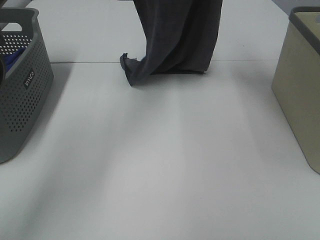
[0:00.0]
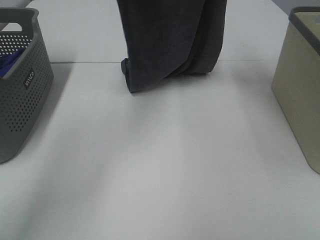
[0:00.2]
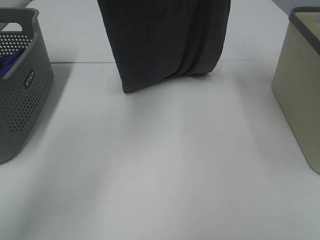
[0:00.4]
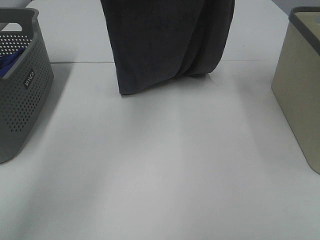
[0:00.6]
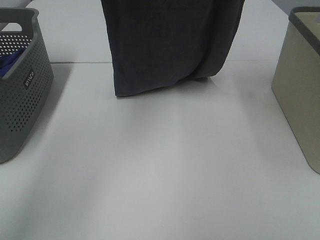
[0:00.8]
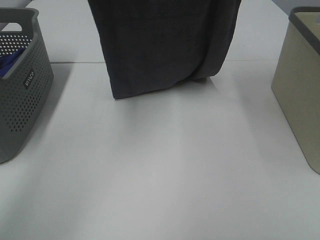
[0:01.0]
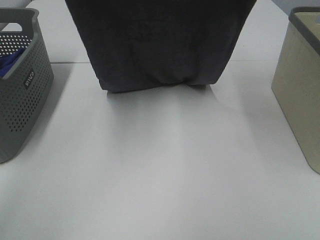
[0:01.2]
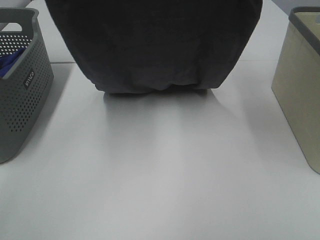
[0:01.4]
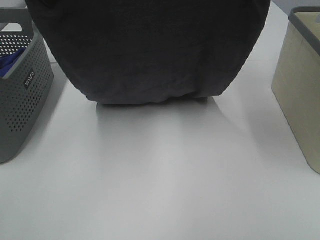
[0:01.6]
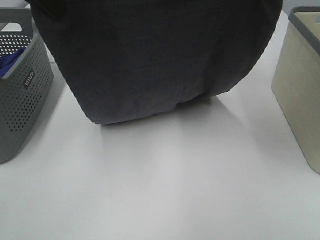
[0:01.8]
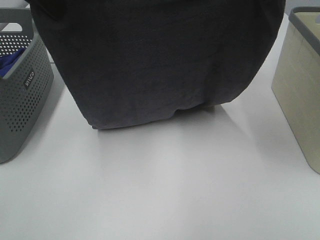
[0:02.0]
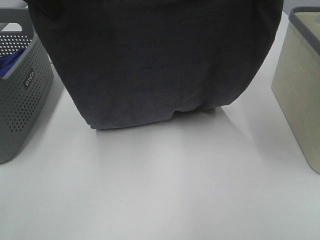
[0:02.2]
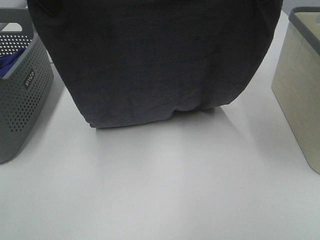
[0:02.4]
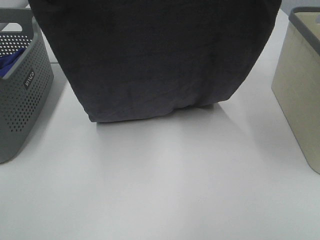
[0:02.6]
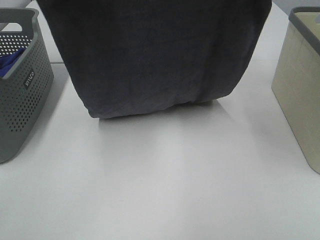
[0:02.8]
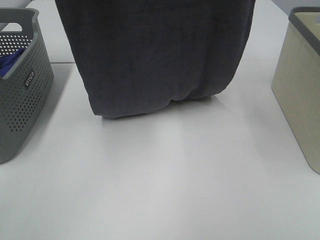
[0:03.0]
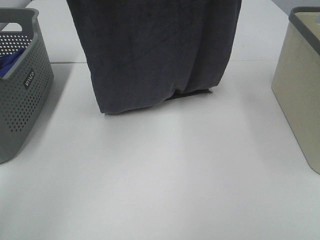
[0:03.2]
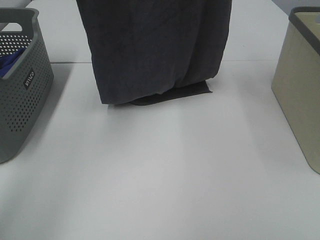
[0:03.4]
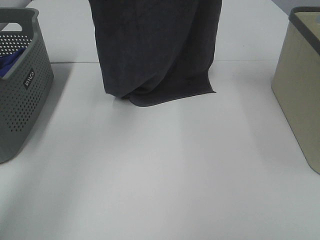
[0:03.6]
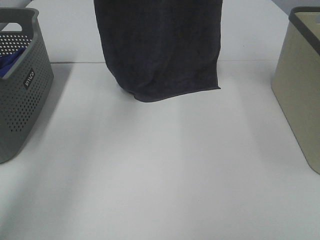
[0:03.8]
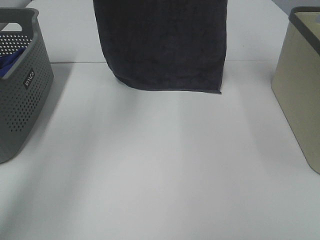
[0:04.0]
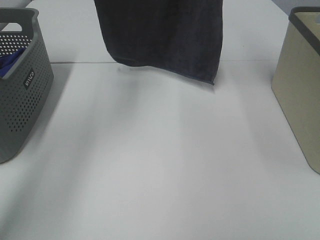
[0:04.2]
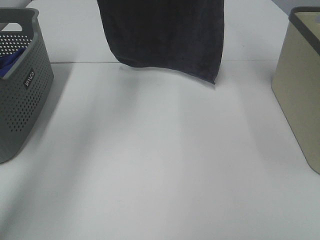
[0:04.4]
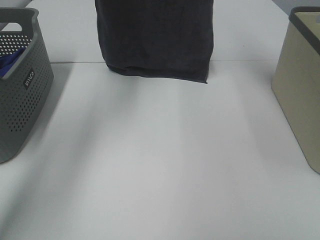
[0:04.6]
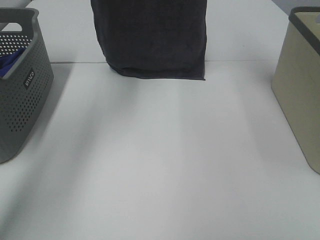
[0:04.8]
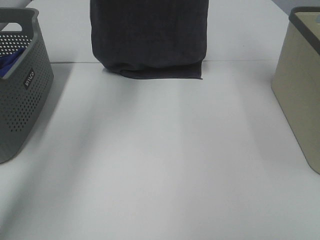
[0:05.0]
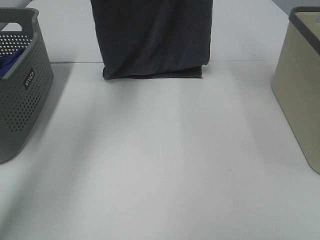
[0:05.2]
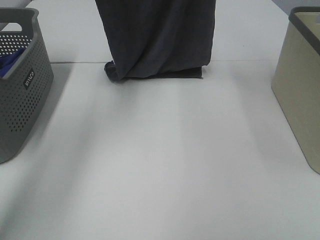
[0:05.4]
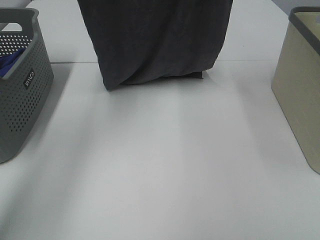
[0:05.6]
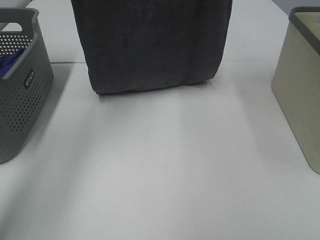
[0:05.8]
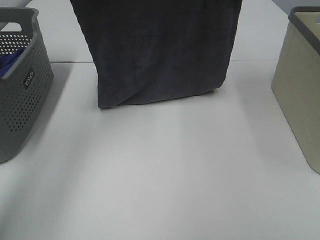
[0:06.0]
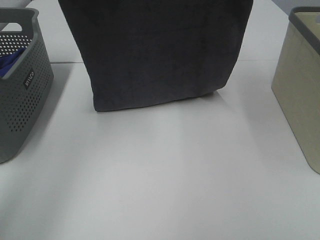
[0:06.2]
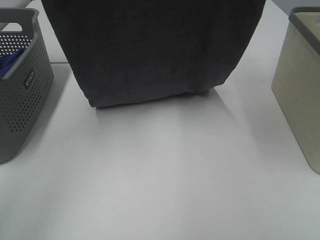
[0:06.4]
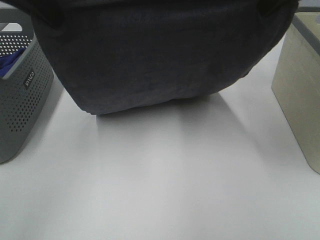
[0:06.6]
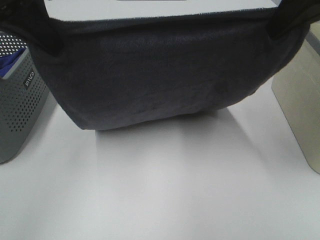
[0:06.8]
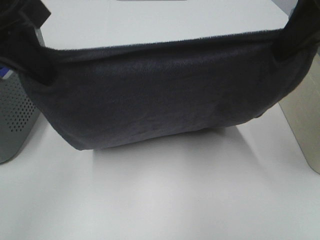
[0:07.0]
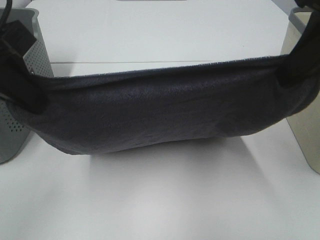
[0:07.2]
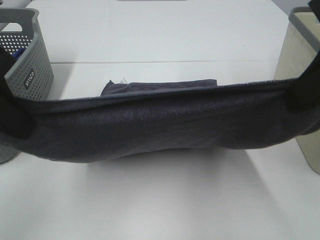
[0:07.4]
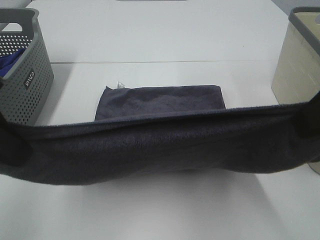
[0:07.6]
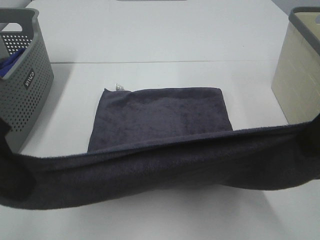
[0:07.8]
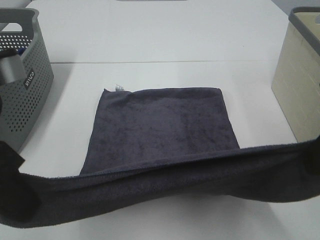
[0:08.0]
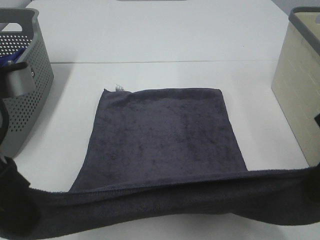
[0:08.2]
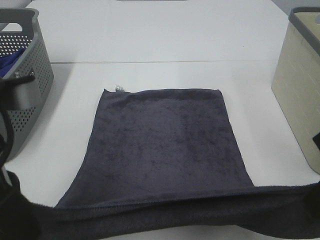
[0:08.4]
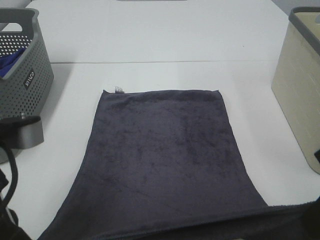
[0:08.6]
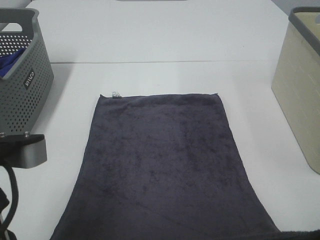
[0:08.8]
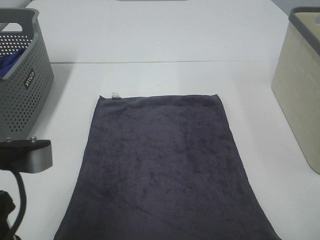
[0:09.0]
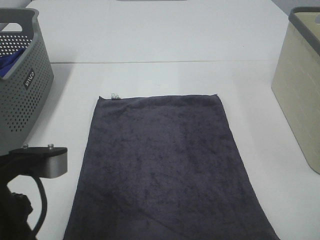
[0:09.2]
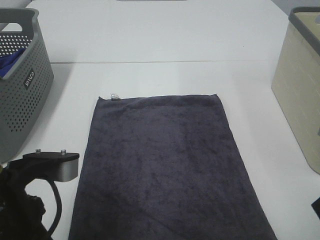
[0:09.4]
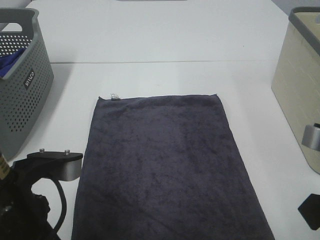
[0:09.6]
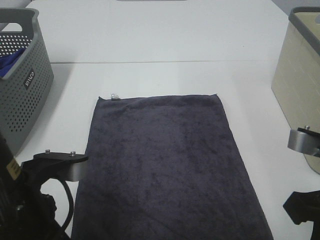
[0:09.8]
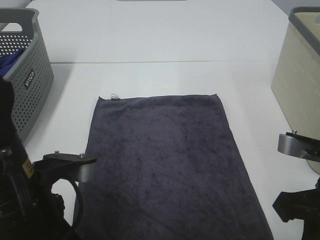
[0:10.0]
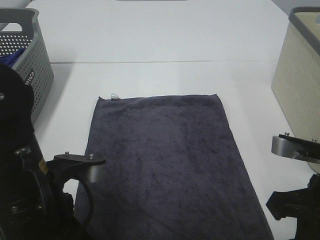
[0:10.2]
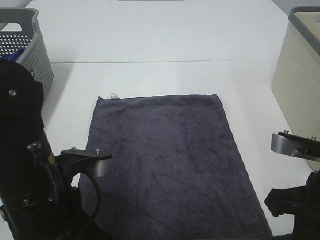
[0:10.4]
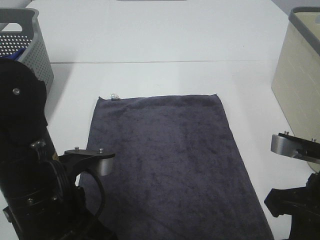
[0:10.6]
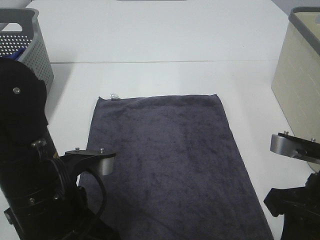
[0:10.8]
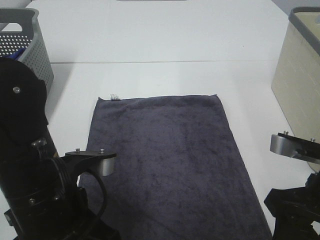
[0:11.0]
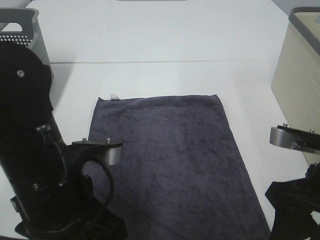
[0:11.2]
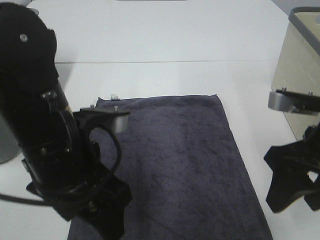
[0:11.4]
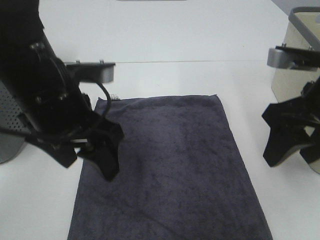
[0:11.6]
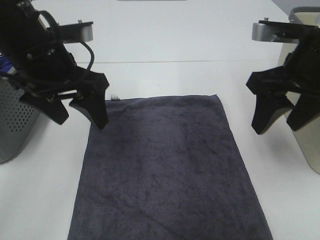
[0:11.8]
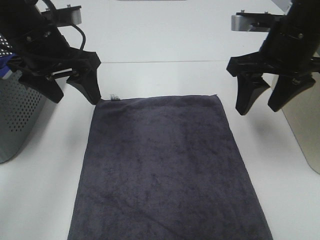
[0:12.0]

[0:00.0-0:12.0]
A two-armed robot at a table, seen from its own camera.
Task of the whole recording: Remove the towel and place it.
Step, 0:00.0 to 0:05.0: Left hand: spread the grey towel flat on the table.
Step, 0:00.0 to 0:05.0: Right hand: spread the grey towel flat on the table.
0:00.0 to 0:01.6: The left gripper heads backward, covering roughly 20 cm. Meanwhile the right gripper travels backward by some 15 cm.
0:01.6 to 0:03.0: The left gripper ends up some 5 cm from where it was.
0:03.0 to 0:04.4: Both grippers move forward, roughly 15 cm.
0:04.4 to 0:06.0: The two grippers go approximately 10 cm downward and backward.
0:06.0 to 0:07.6: The grippers both shift backward by about 25 cm.
0:07.6 to 0:09.0: The right gripper heads downward and backward, covering about 10 cm. Meanwhile the left gripper is displaced downward, backward and to the right by about 10 cm.
0:09.0 to 0:10.4: The right gripper shifts about 10 cm downward and forward. The left gripper heads downward, covering approximately 5 cm.
0:10.4 to 0:12.0: The grippers both shift forward and upward by roughly 20 cm. The right gripper opens its fingers. The left gripper opens its fingers.

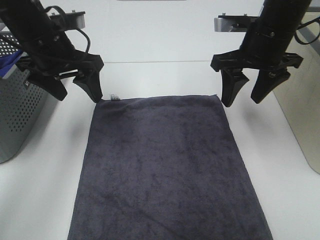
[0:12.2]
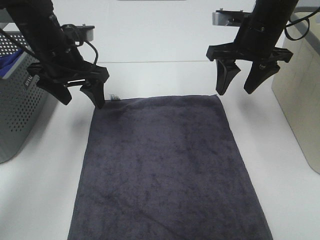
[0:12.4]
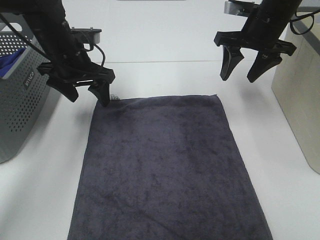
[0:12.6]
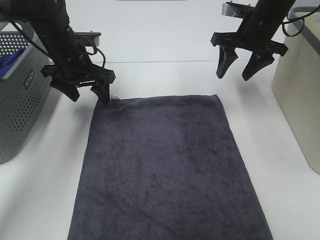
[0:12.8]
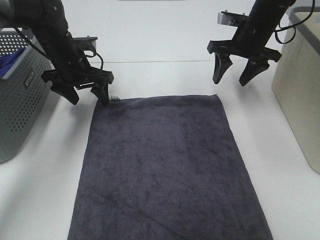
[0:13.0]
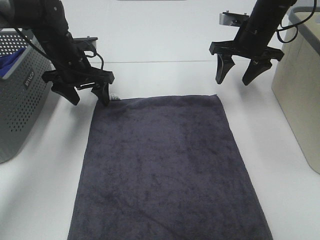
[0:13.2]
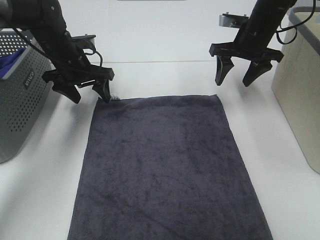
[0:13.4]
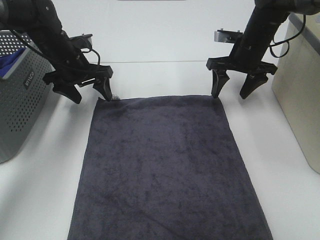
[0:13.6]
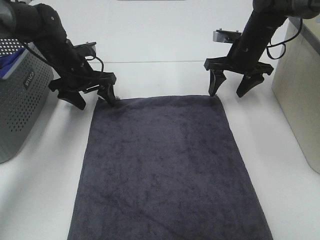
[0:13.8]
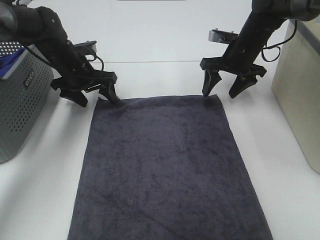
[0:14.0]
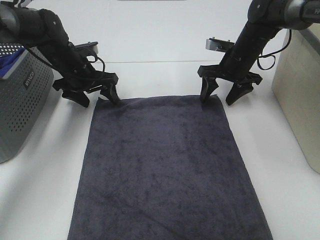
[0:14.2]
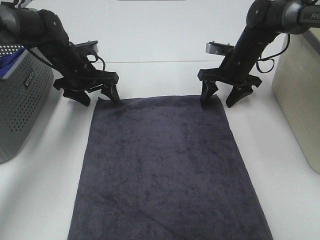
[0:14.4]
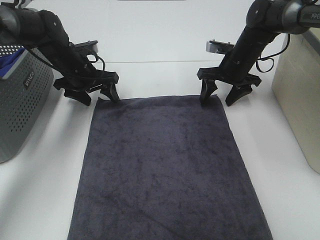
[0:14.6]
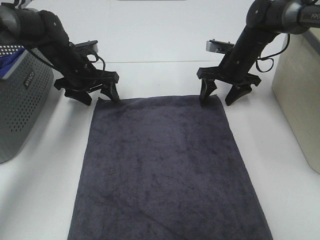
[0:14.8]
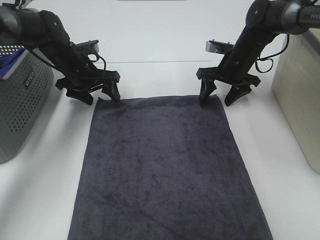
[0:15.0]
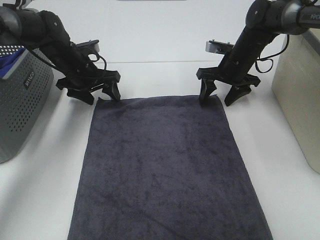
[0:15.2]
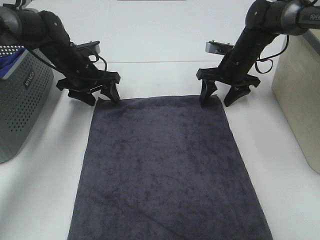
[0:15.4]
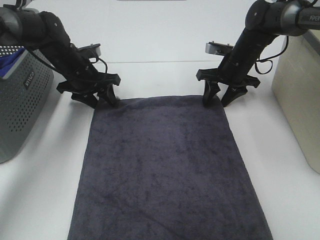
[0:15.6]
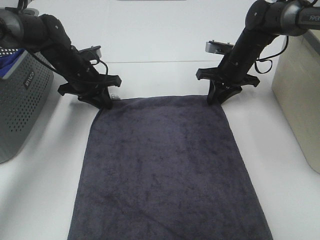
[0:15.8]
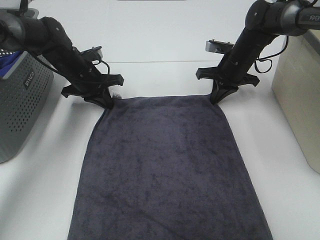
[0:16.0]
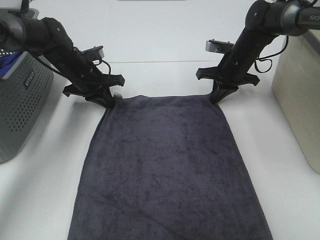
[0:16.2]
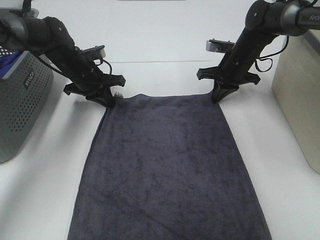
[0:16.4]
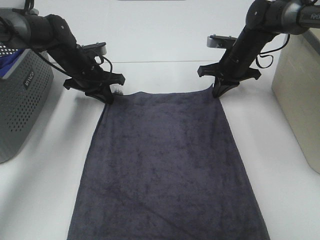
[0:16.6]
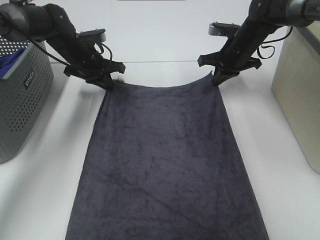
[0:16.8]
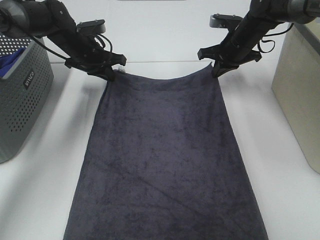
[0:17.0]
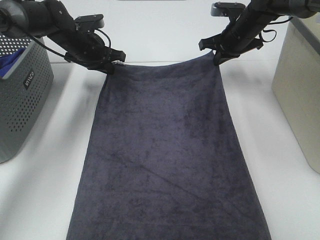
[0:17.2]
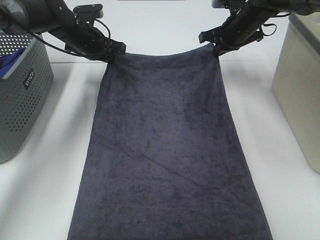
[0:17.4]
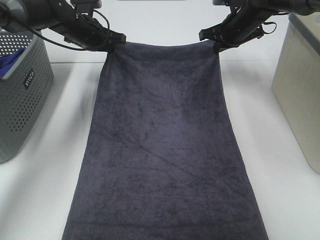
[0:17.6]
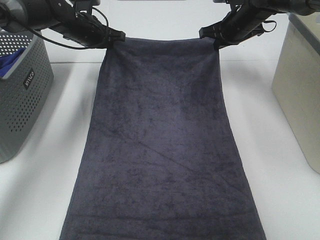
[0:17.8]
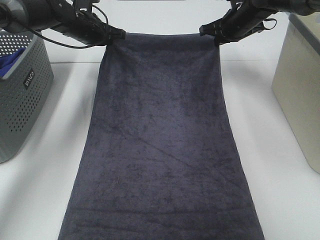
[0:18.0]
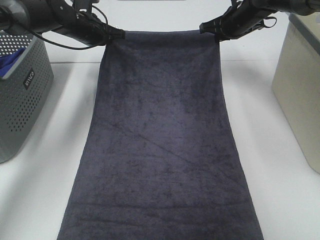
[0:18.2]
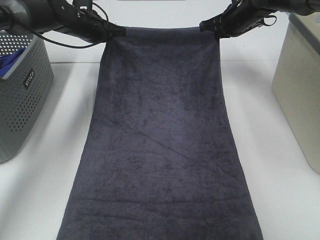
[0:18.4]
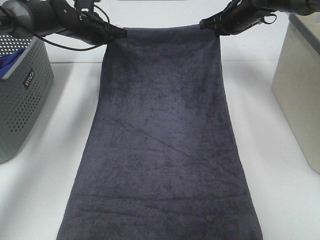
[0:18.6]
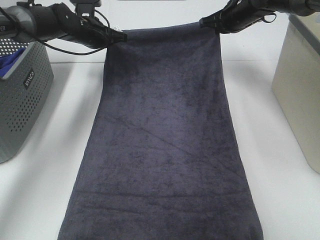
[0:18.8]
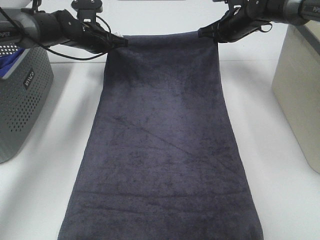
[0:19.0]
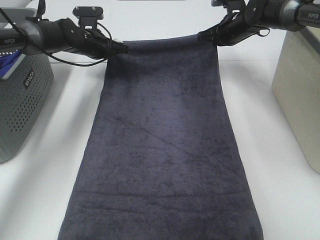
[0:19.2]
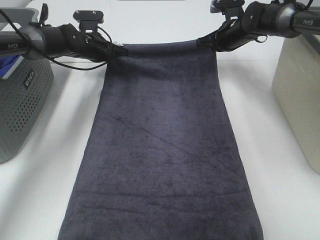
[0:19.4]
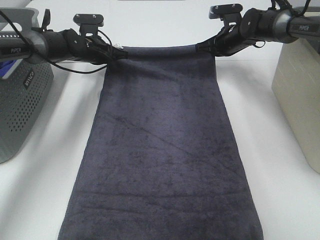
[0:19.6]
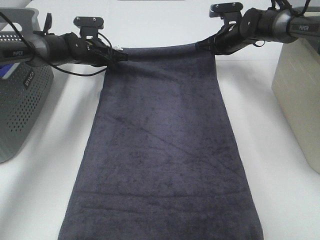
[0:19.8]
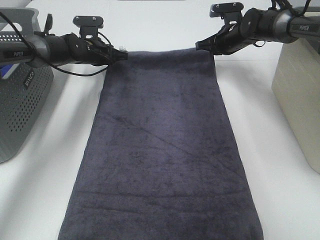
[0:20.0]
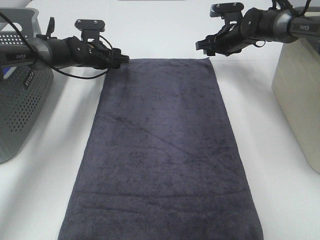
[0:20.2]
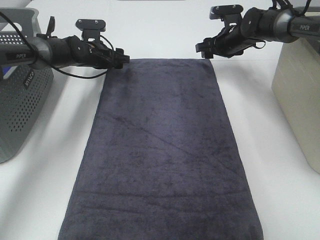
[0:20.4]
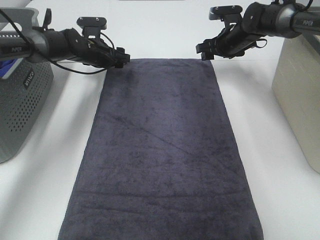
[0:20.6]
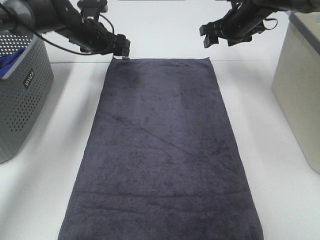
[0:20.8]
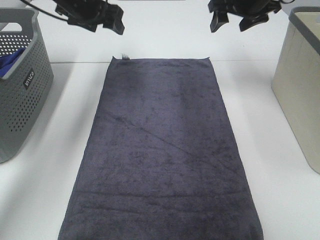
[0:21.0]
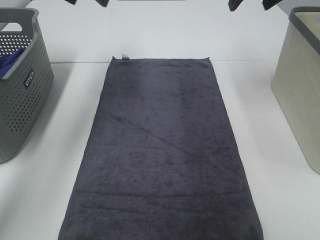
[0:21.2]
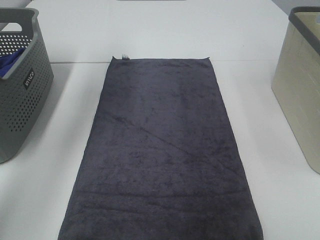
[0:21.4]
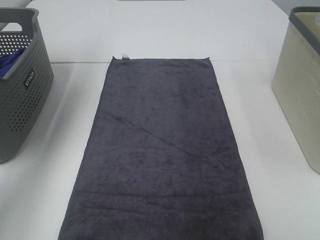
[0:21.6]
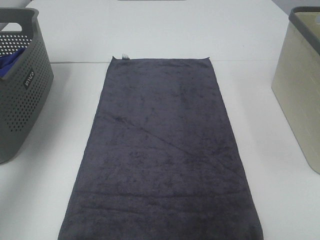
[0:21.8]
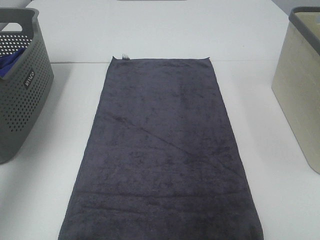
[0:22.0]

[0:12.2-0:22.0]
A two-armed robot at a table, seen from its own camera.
Task of the whole recording: Remove the towel and place it.
0:12.2 to 0:13.6: Both grippers travel together forward and downward, some 15 cm.
0:13.6 to 0:15.0: There are only small adjustments of the grippers.
0:15.0 to 0:16.4: The right gripper closes its fingers, while the left gripper closes up.
0:16.4 to 0:17.8: The left gripper travels upward and forward by some 10 cm, while the right gripper shifts some 5 cm upward.
0:17.8 to 0:19.2: The grippers move only a little.
0:19.2 to 0:20.6: The left gripper opens; the right gripper opens its fingers.
0:20.6 to 0:22.0: The right gripper heads upward and backward, covering about 40 cm; the left gripper shifts roughly 40 cm upward, backward and to the left.
